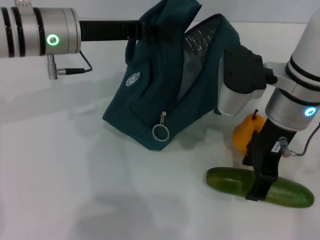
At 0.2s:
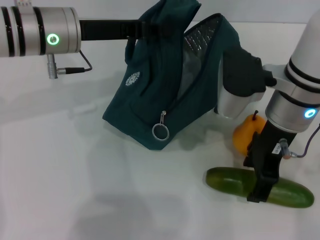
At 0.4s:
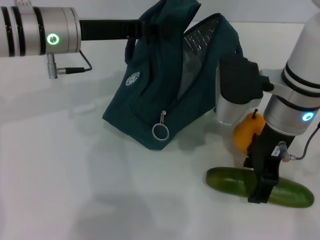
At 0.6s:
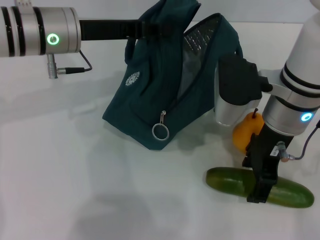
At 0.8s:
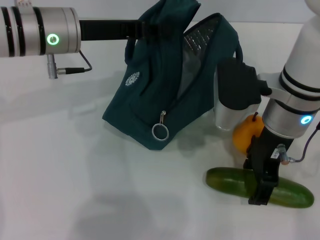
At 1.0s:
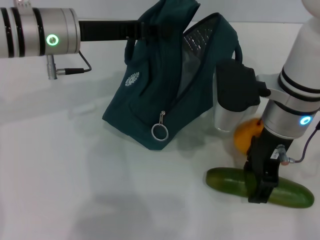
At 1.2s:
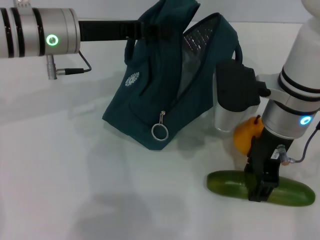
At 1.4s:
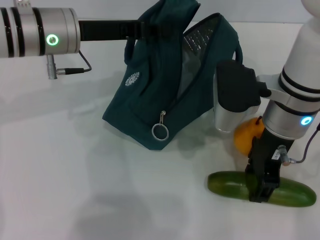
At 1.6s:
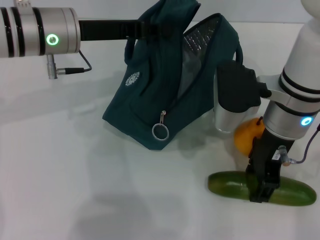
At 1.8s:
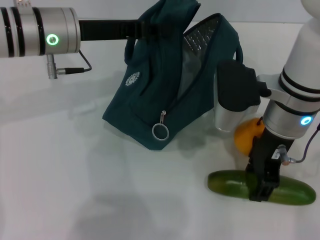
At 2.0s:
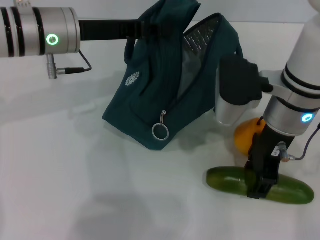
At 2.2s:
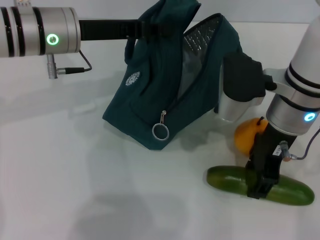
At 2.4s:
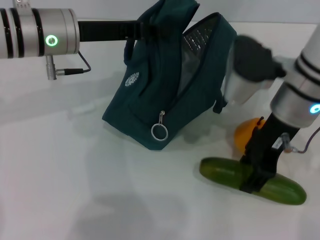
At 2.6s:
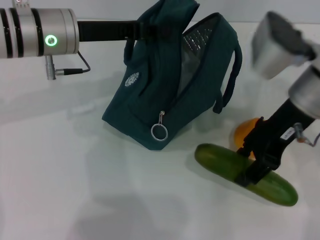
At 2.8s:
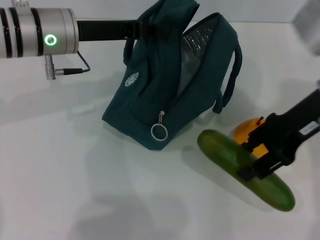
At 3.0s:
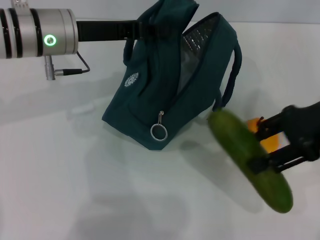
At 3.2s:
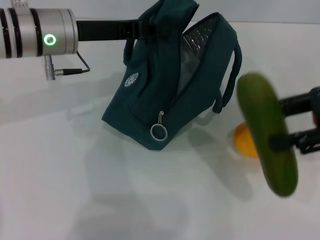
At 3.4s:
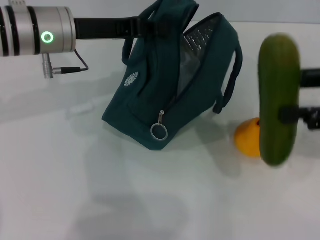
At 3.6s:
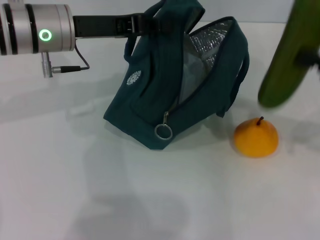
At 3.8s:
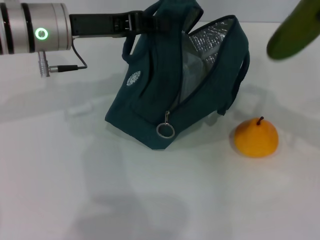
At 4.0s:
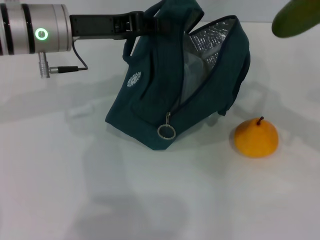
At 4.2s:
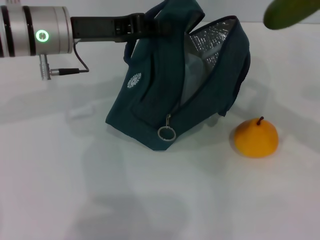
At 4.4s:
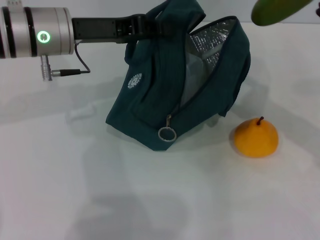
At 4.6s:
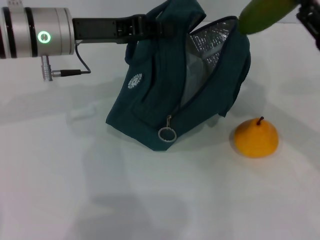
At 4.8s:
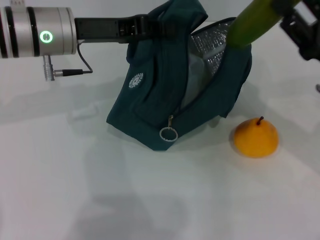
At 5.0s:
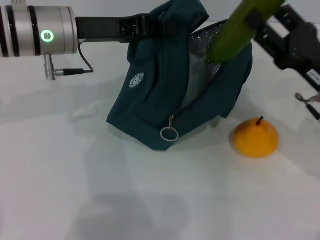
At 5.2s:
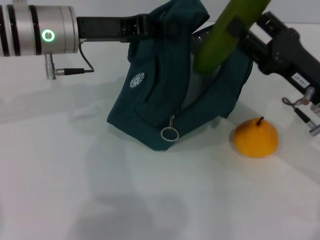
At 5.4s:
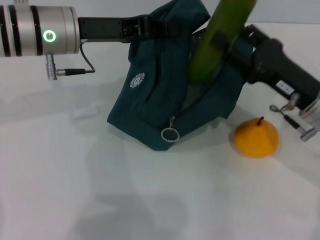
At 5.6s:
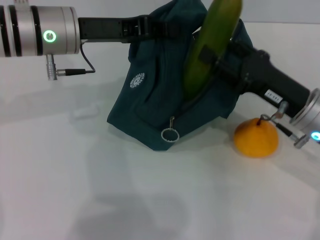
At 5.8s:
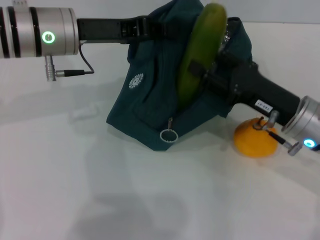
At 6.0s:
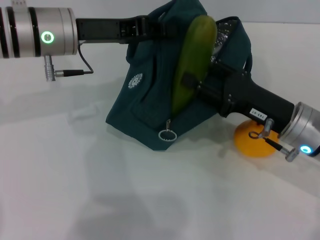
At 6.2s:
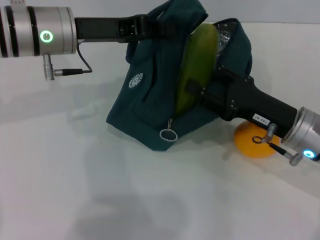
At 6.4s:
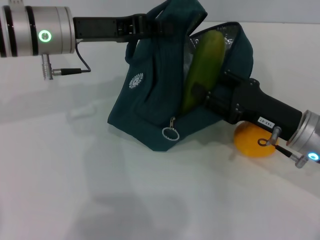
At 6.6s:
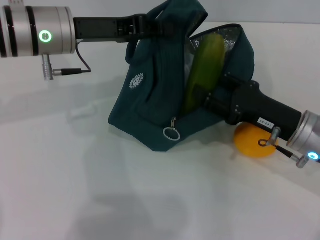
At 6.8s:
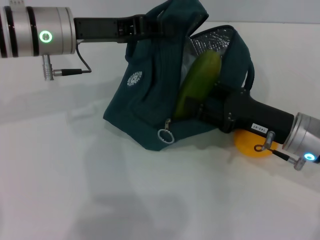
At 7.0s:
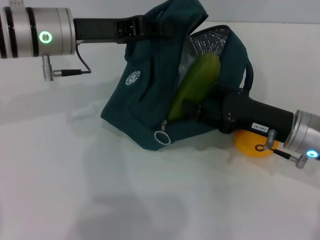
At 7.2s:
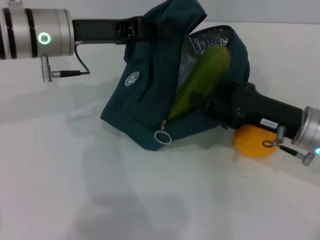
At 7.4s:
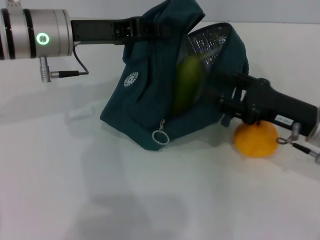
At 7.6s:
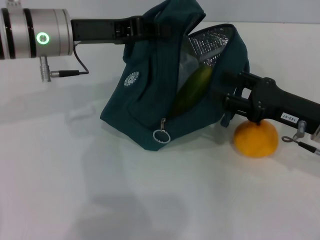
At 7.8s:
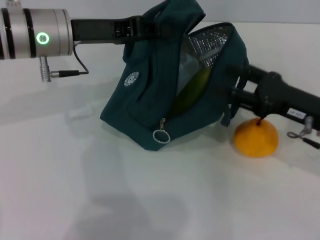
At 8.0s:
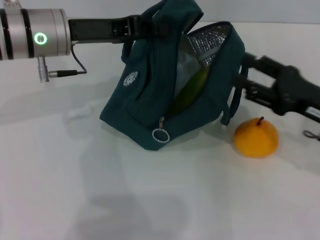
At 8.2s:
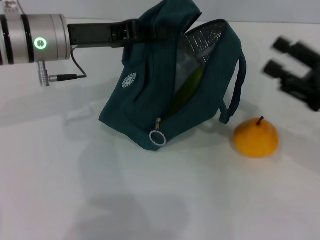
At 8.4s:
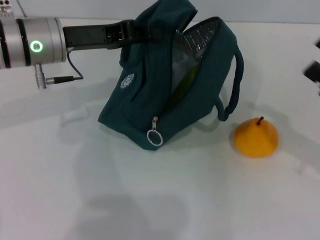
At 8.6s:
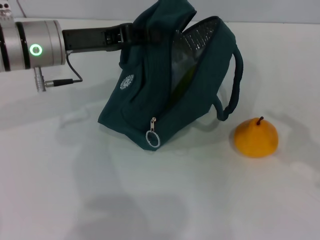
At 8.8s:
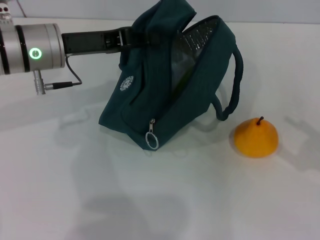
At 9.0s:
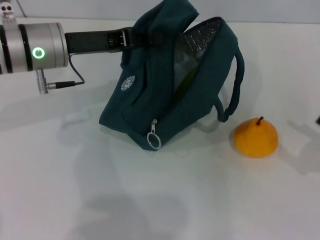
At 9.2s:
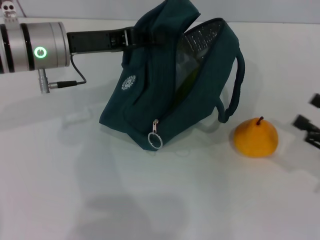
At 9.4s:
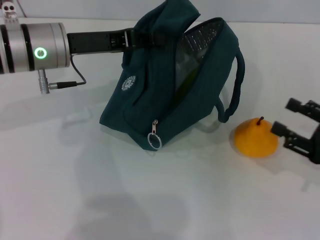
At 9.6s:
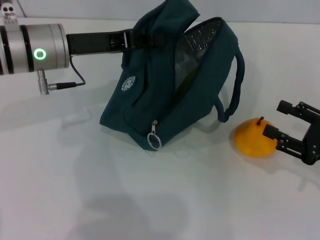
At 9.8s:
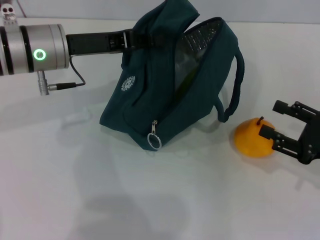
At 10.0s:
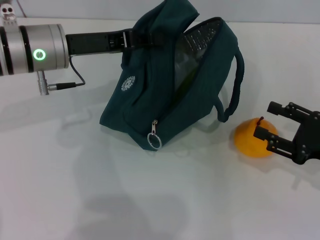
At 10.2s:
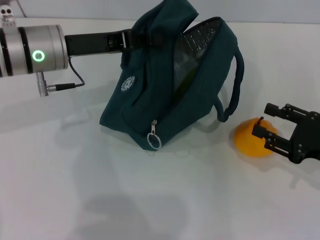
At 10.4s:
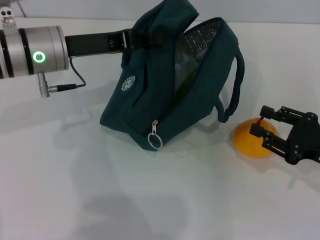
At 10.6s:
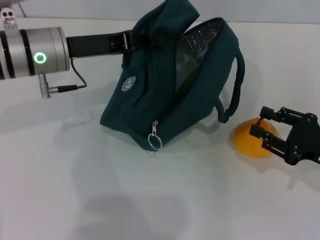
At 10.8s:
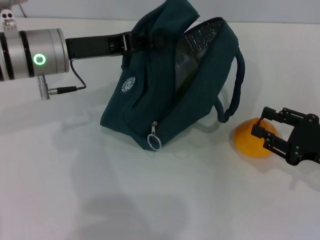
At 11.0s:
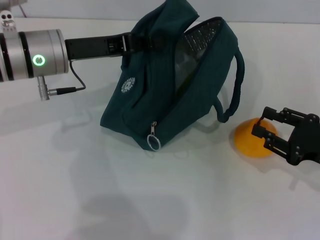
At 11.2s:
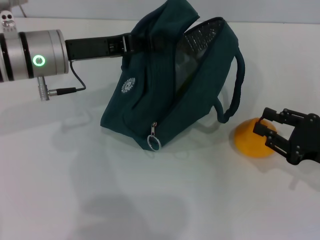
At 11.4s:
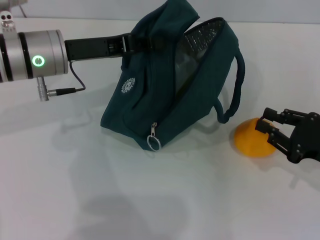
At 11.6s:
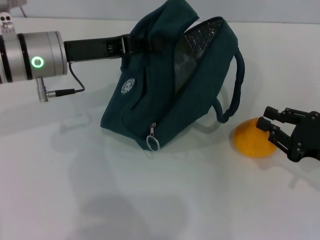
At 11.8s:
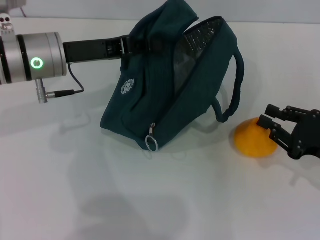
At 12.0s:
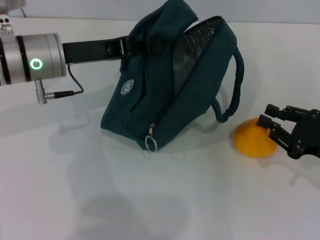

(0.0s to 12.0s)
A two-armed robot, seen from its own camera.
Step, 1.6s - 7.8s: Put the cucumber into the lunch bag with your right hand.
0.0s - 1.6s: The two grippers keep their place.
1.6s - 3.0s: The right gripper goes some 15 cm to the right.
3.0s - 4.4s: The right gripper heads downward, covering some 5 cm.
4.4s - 6.0s: The right gripper travels to the left and downward by approximately 10 cm.
6.0s - 7.6s: The grippers stay close to where they were, moving slightly.
7.6s - 9.0s: The right gripper moves to the right and backward, some 15 cm.
9.0s - 10.4s: The right gripper is displaced to the left by about 5 cm.
10.4s - 12.0s: Neither gripper changes place.

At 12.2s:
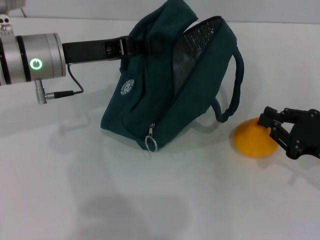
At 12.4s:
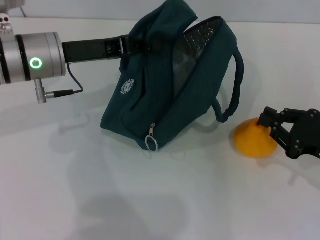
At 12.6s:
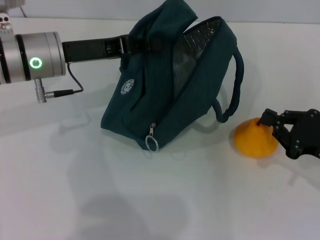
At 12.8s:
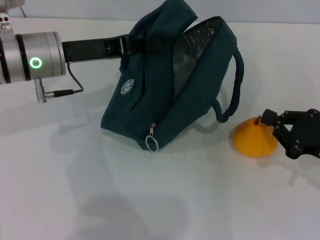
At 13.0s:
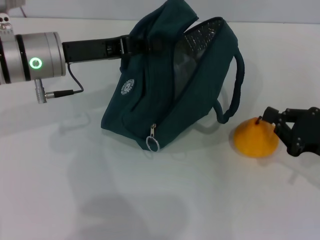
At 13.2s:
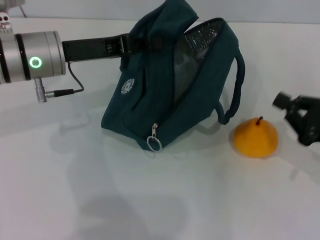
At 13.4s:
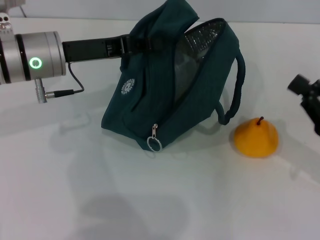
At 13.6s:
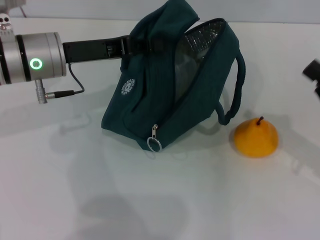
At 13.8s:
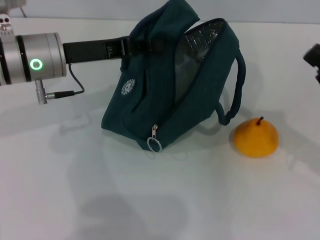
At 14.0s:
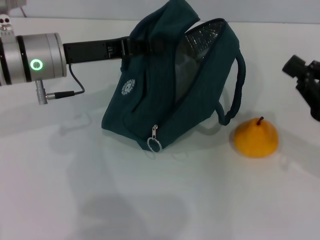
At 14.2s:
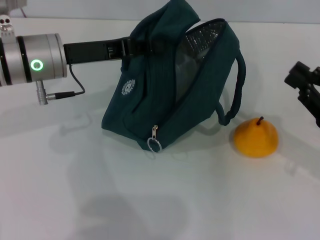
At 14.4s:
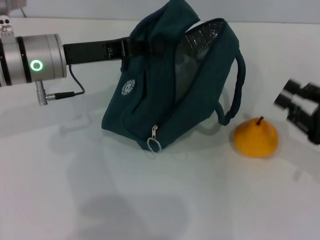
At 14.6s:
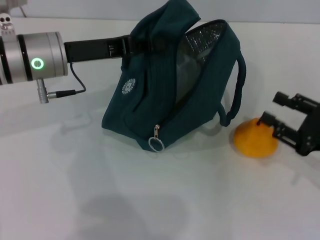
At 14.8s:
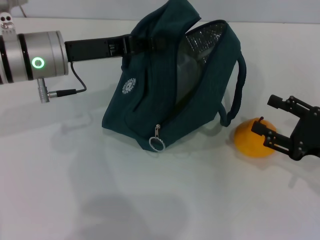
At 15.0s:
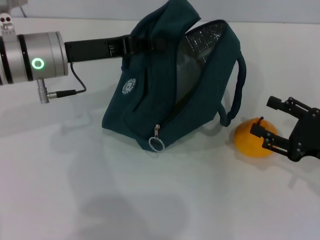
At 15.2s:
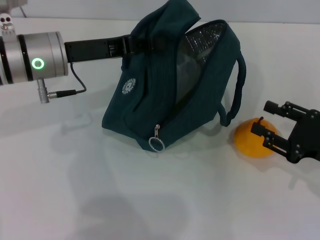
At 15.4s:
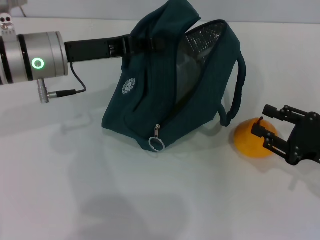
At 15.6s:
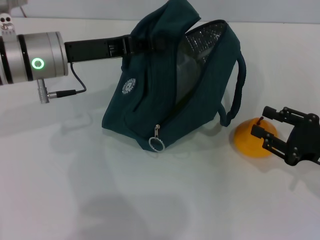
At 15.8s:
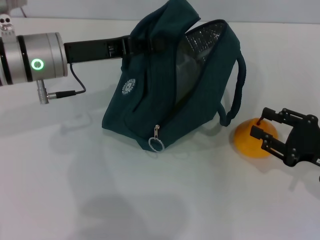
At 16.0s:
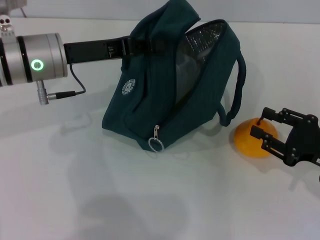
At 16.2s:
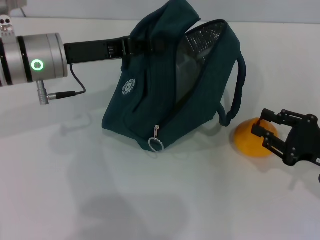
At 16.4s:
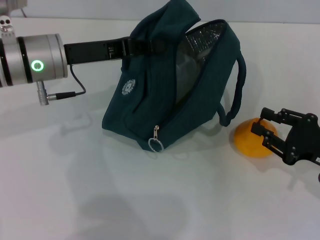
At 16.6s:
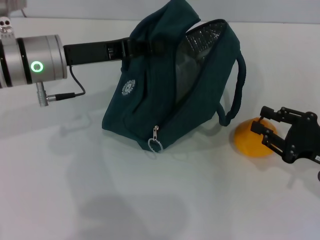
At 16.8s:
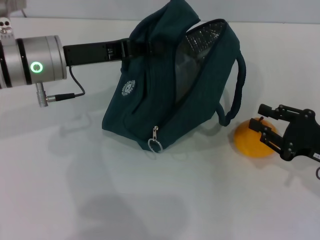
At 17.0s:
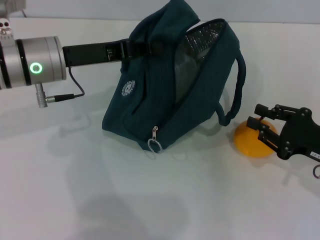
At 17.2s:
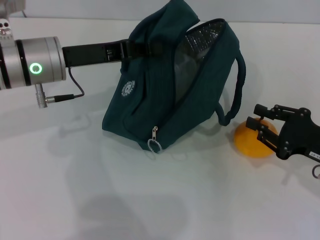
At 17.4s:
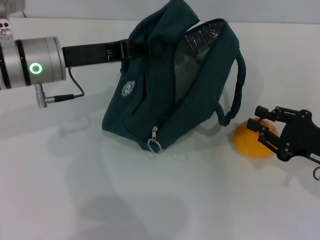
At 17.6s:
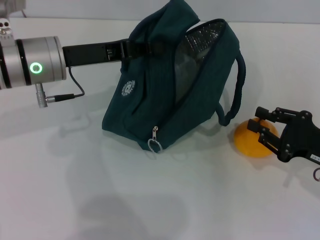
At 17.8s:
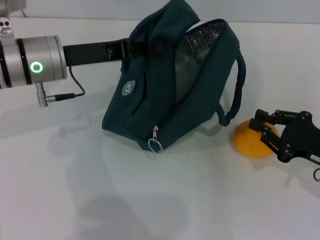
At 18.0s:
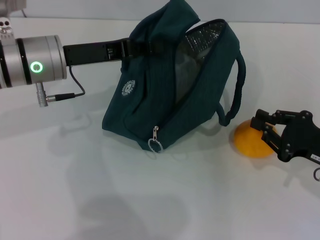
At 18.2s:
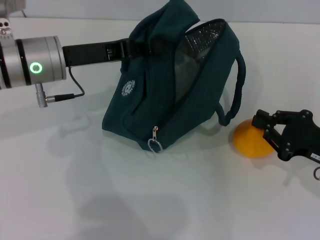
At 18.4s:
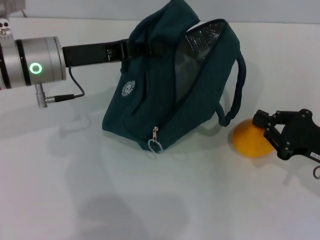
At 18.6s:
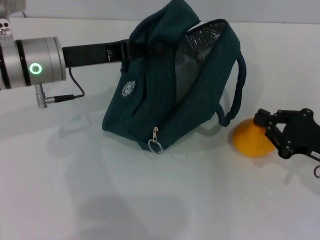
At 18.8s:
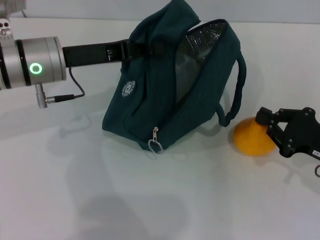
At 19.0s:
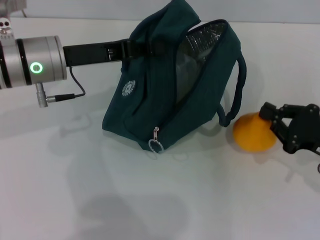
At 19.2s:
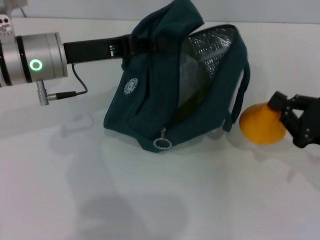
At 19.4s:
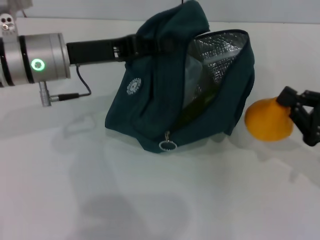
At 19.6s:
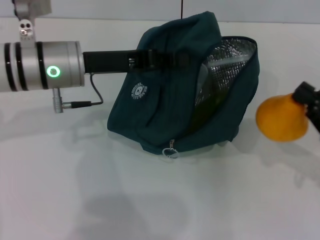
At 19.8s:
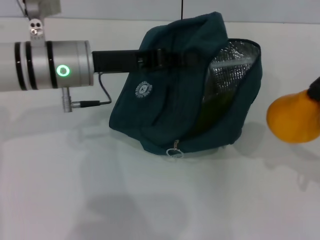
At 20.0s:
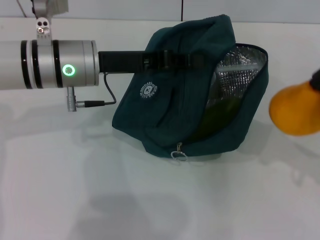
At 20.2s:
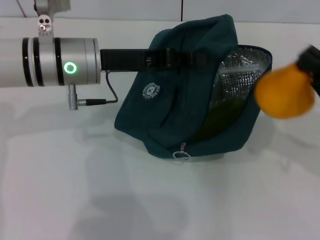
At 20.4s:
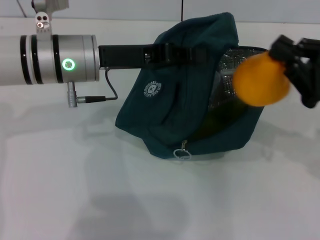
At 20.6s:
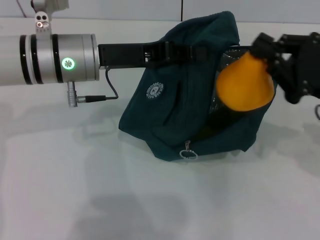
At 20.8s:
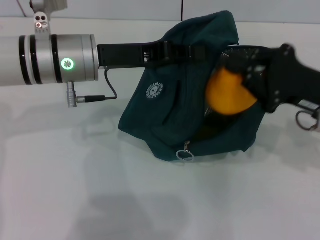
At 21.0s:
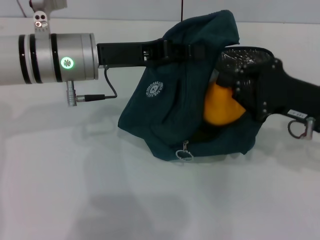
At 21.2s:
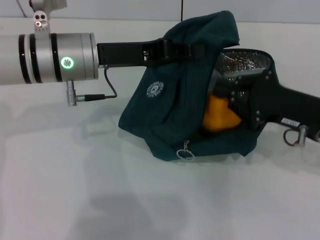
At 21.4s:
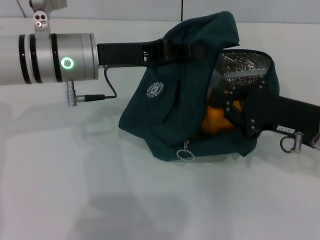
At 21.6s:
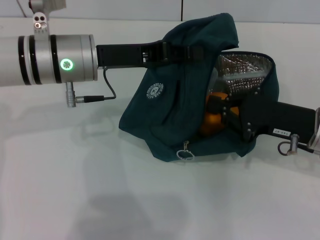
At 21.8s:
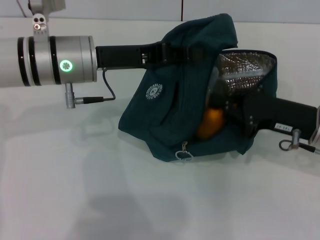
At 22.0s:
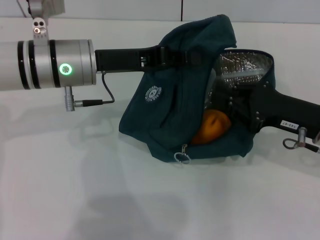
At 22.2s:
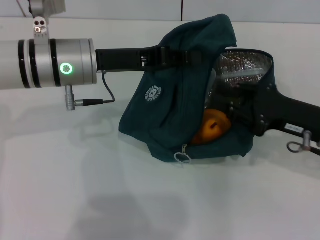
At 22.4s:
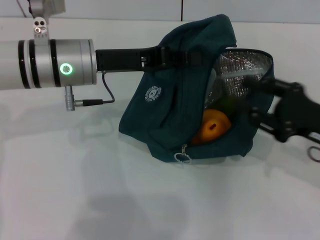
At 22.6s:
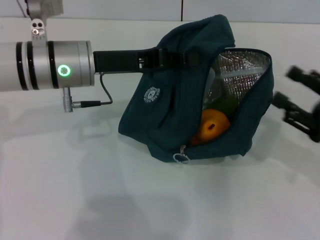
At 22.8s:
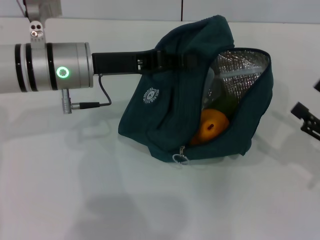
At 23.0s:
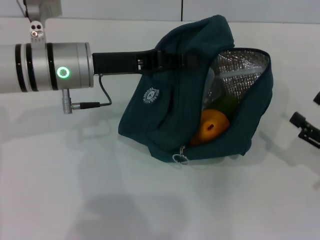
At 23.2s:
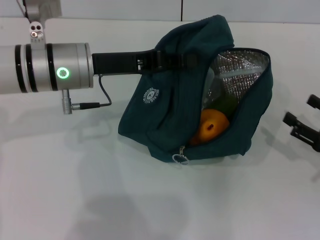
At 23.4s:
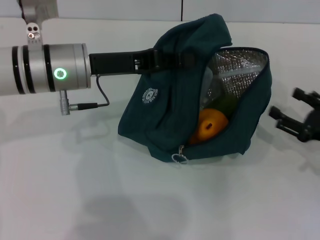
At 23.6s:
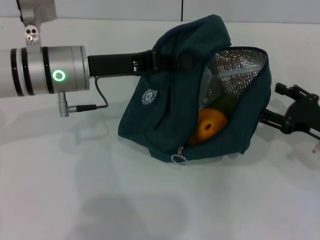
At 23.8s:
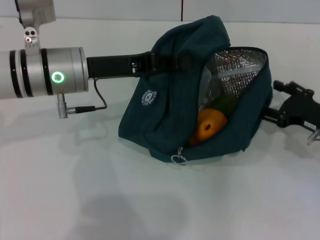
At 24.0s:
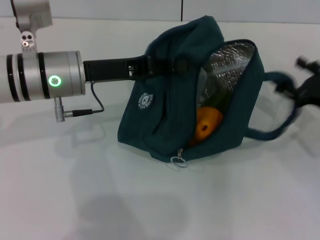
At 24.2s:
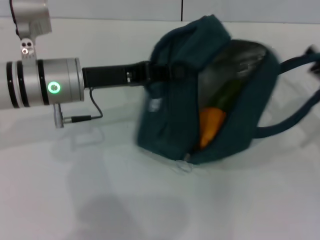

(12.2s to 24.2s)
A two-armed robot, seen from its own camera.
Step, 12.2s - 18.6s: Grab the pear with your right hand.
Step, 18.8s - 22.0s: Secure the lunch bag with your left hand.
12.2s - 13.8s: The right gripper shifts some 5 cm upward.
13.8s - 15.2s: The right gripper opens its fingers.
15.2s - 16.6s: The right gripper closes up.
16.6s - 18.2s: Neither gripper changes place.
18.2s - 19.8s: The right gripper ends up approximately 5 cm from where it was.
19.8s - 21.2s: The right gripper goes approximately 10 cm to the left and forward.
21.2s - 22.6s: The right gripper shifts roughly 10 cm to the right and backward.
22.6s - 24.2s: The right gripper travels forward and back again, approximately 5 cm each way, and opens up.
